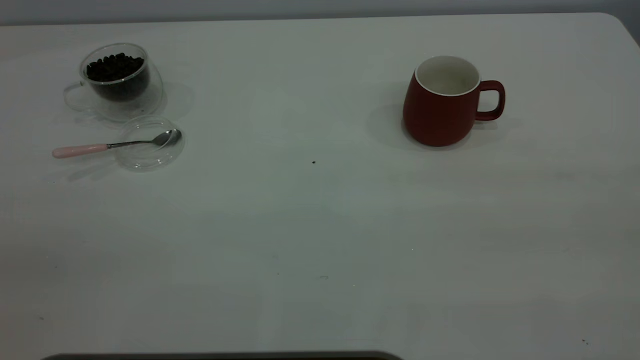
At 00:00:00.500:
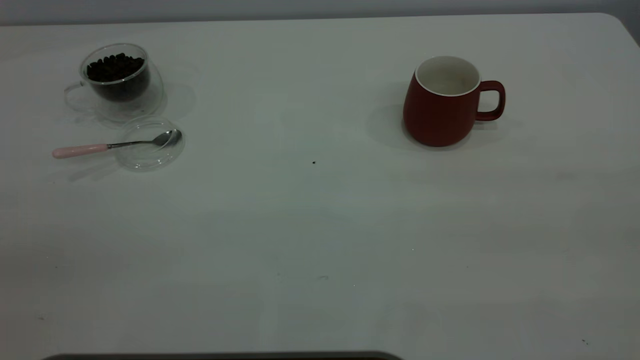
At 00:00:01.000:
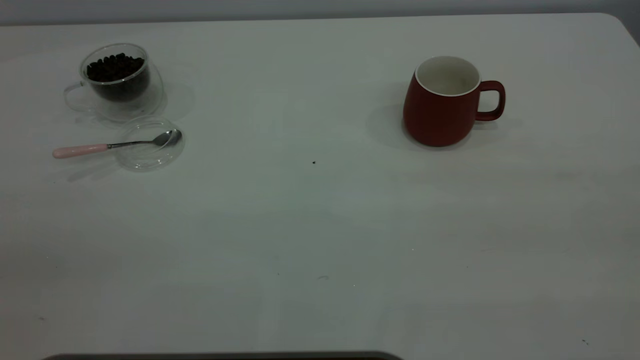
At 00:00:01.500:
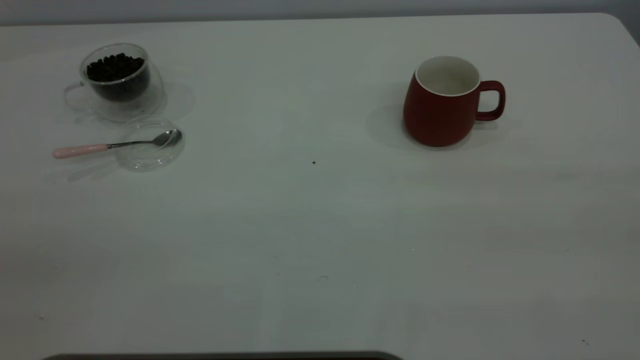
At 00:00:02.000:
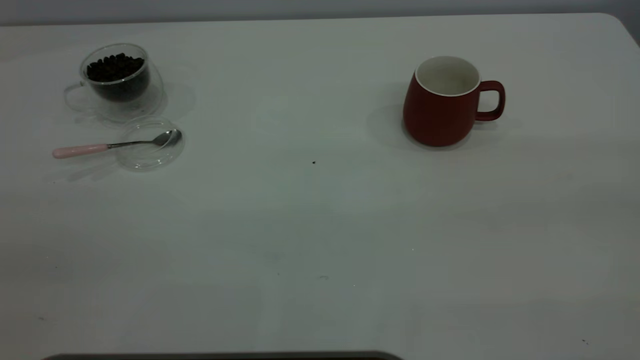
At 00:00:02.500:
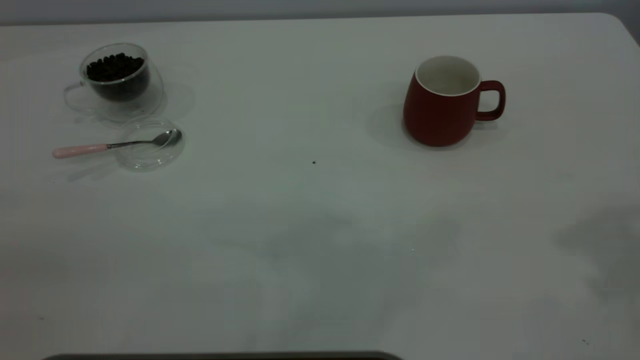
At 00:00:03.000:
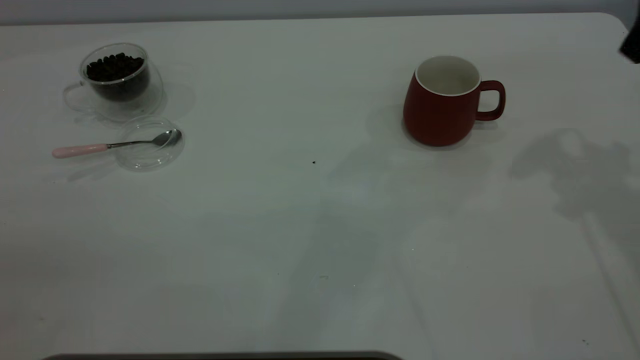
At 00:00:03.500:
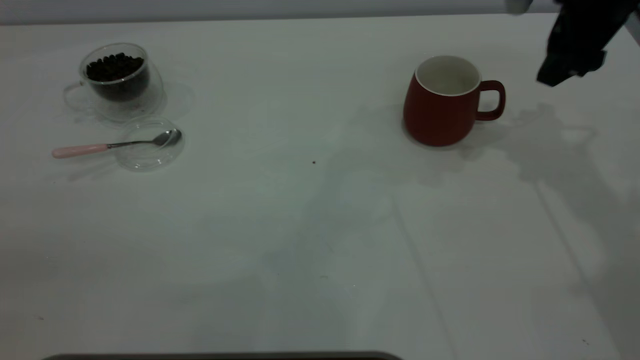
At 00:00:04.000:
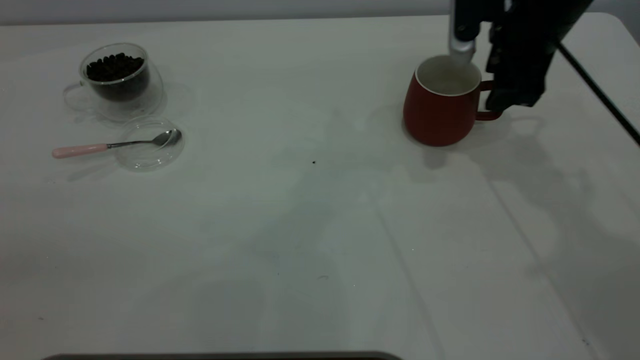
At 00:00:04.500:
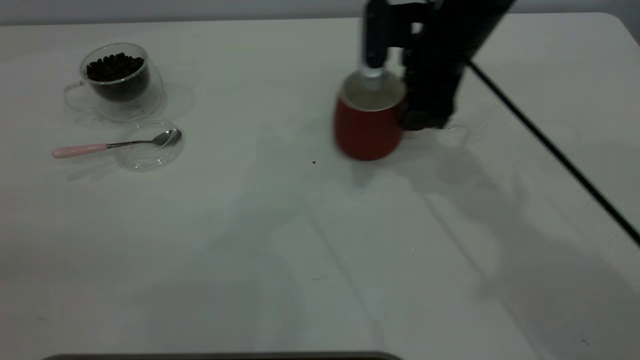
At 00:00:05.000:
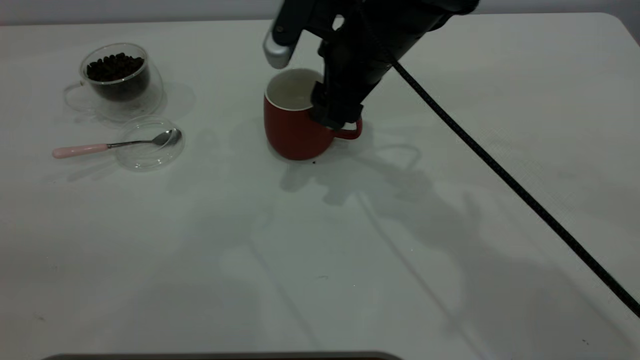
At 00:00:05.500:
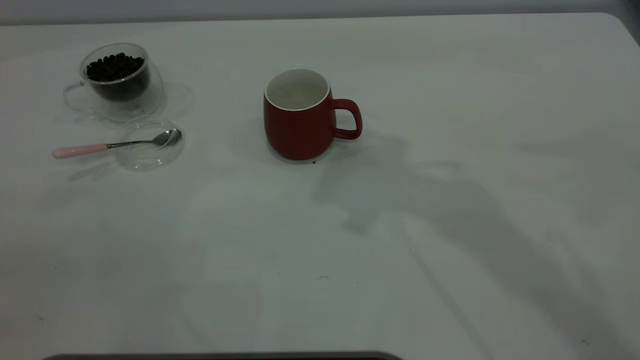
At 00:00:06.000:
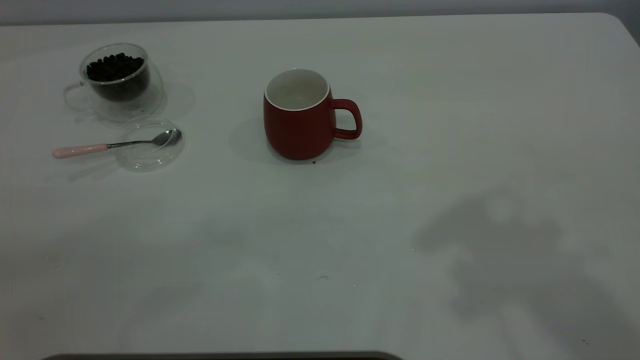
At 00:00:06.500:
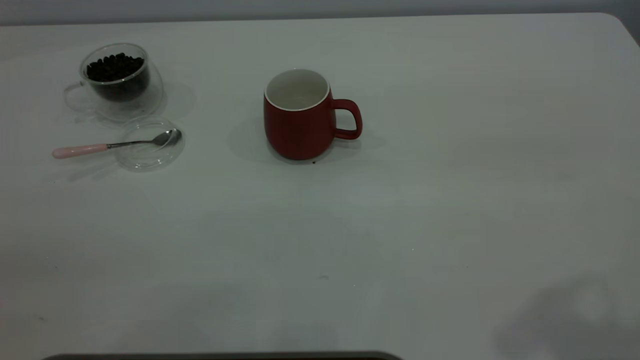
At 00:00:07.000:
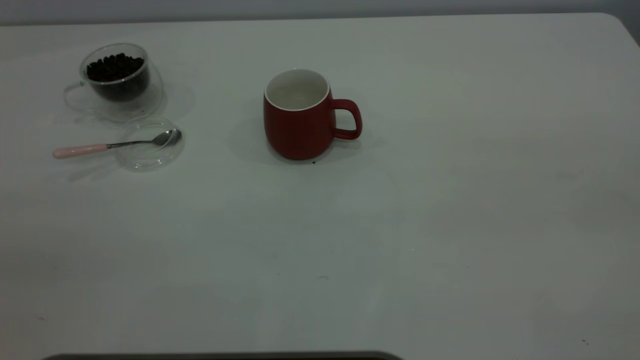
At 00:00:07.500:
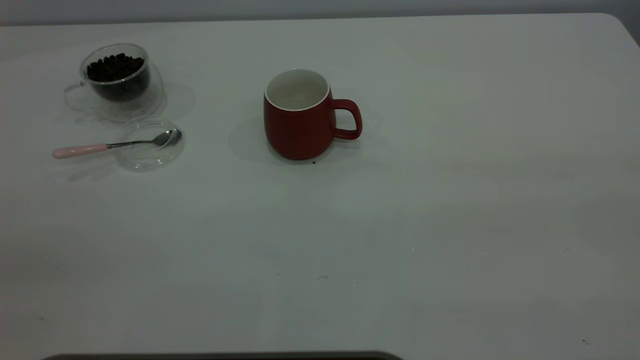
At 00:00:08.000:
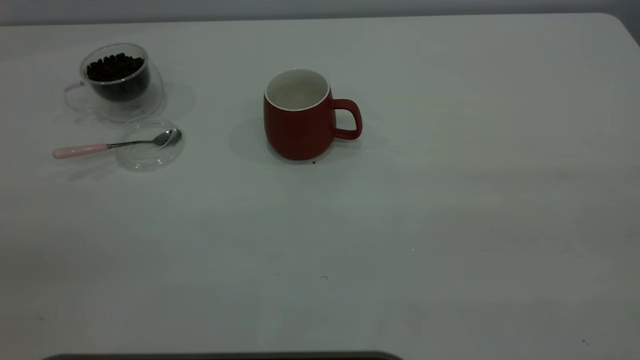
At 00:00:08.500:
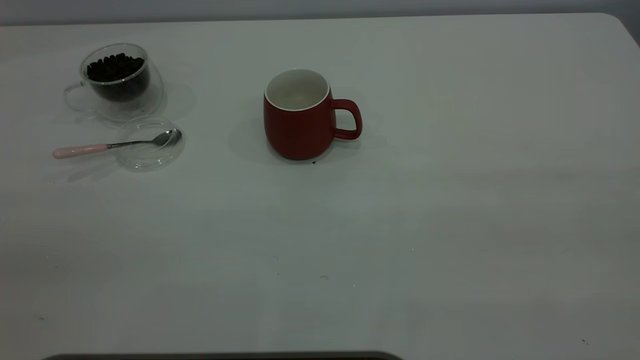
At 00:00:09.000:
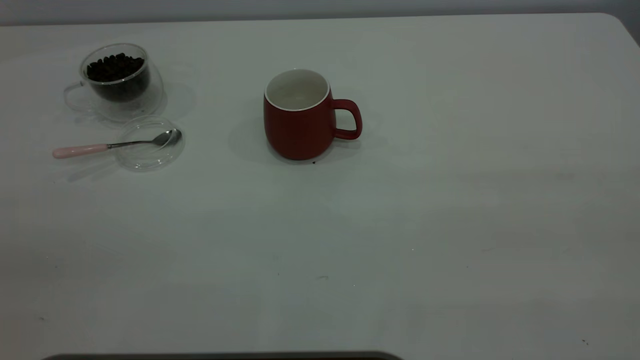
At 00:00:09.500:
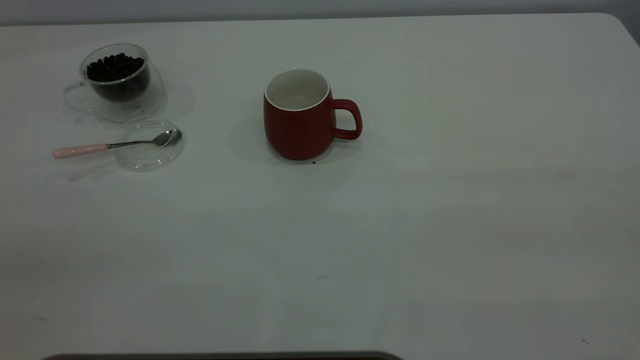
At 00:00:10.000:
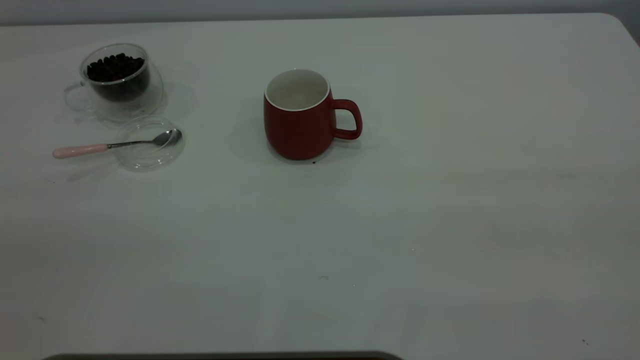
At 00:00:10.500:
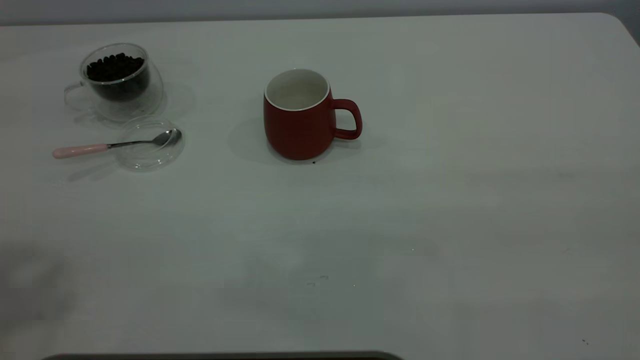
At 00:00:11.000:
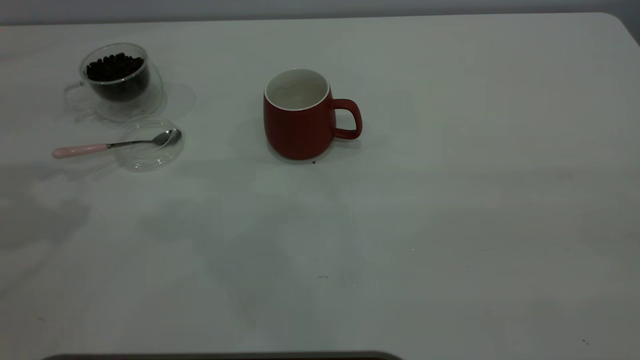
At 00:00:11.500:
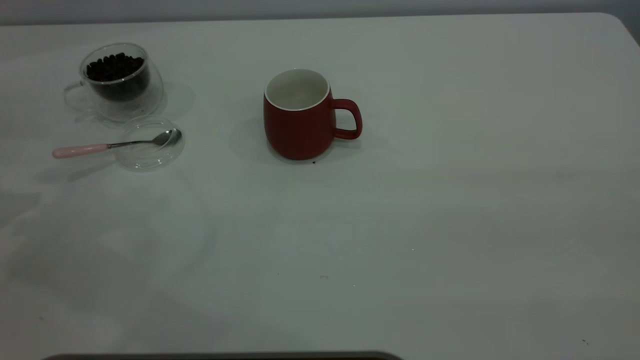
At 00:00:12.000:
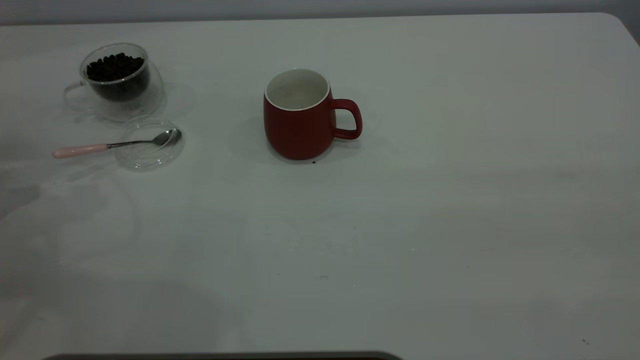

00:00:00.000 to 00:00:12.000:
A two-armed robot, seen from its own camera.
Task of the whole recording: the right gripper place the red cup in the center of the table, the left gripper take the pink spoon from the cup lid and scoop out the coffee beans from the coffee cup and put them into the red cup, the left gripper put the spoon back into the cup lid.
Step, 00:00:00.000 to 00:00:05.000: Move the cup to the center of view.
00:00:02.000 to 00:00:04.000: The right gripper travels forward and downward by approximately 50 cm.
00:00:04.000 to 00:00:06.000: The right gripper shifts some 35 cm upward and backward.

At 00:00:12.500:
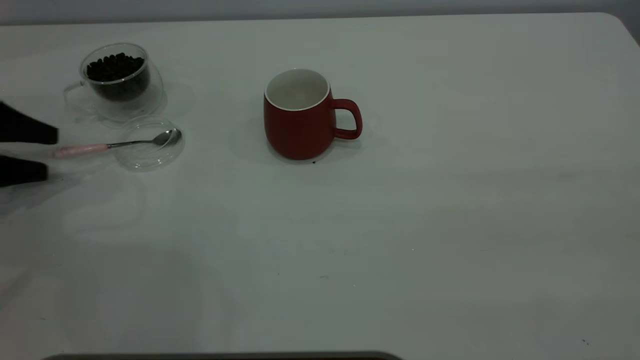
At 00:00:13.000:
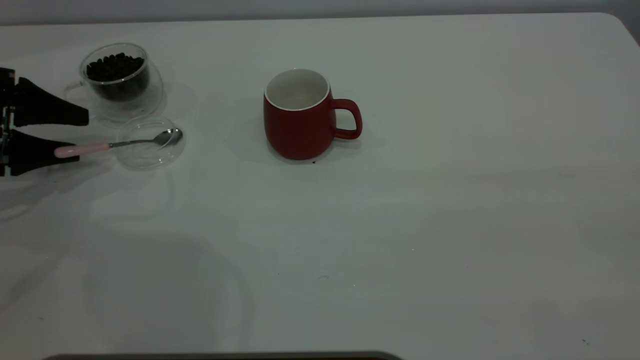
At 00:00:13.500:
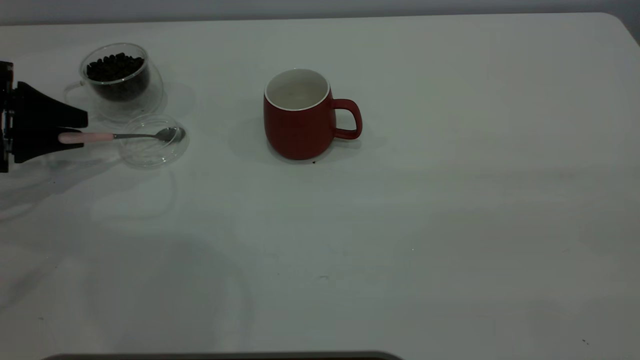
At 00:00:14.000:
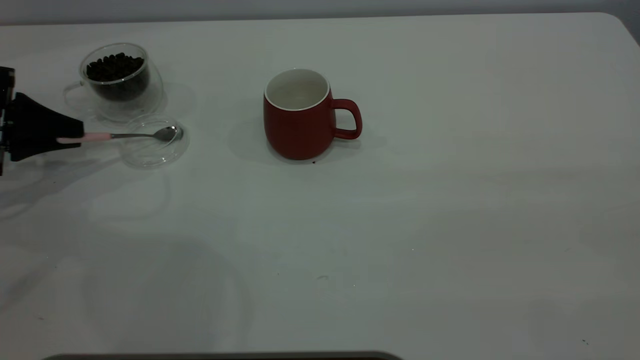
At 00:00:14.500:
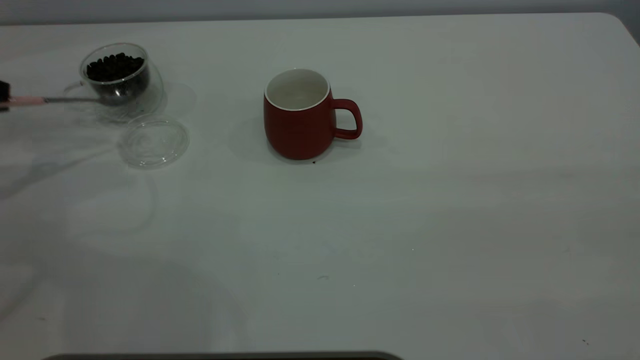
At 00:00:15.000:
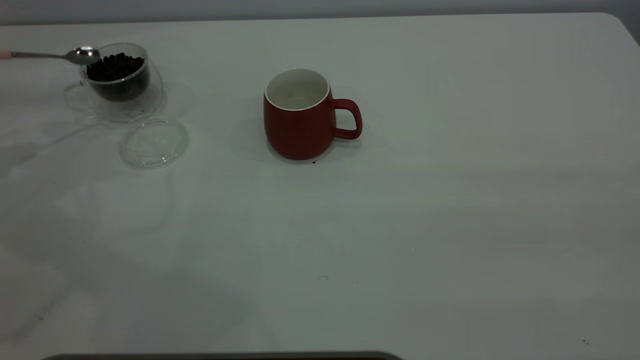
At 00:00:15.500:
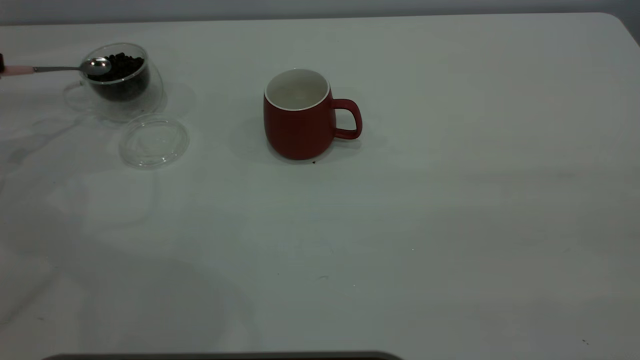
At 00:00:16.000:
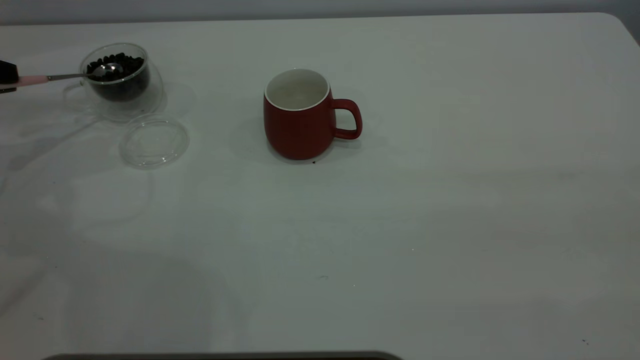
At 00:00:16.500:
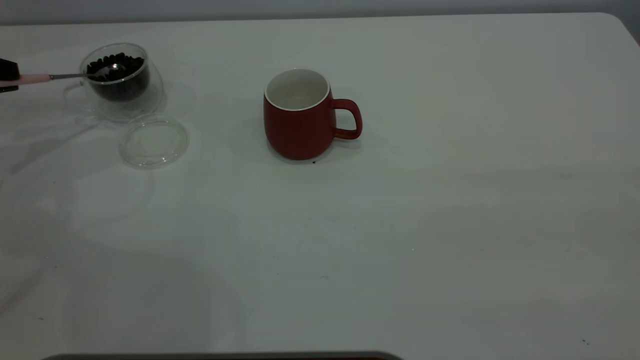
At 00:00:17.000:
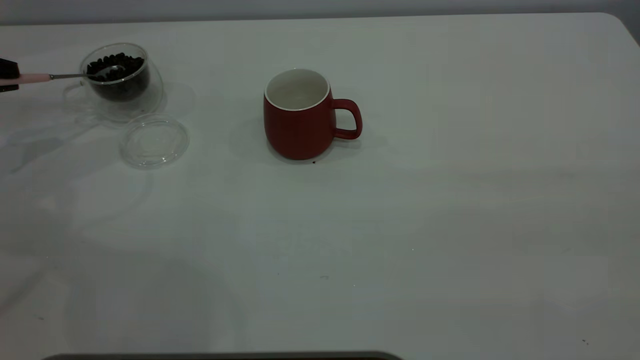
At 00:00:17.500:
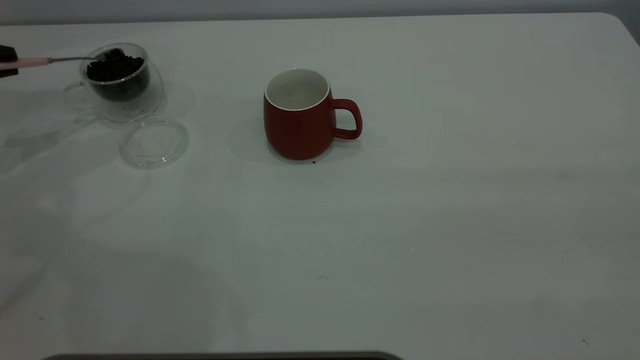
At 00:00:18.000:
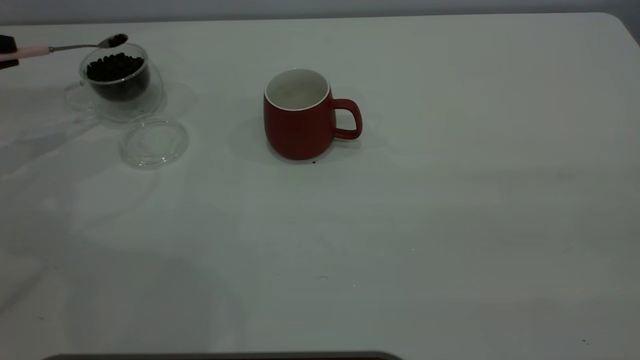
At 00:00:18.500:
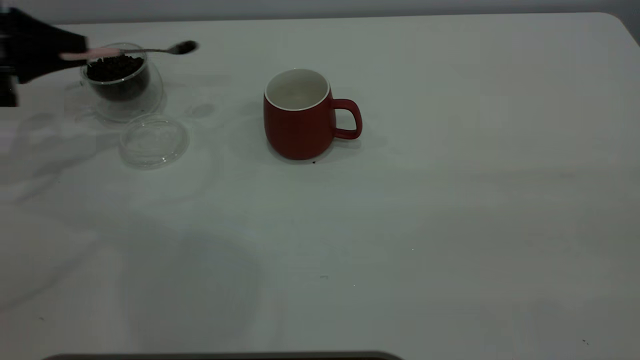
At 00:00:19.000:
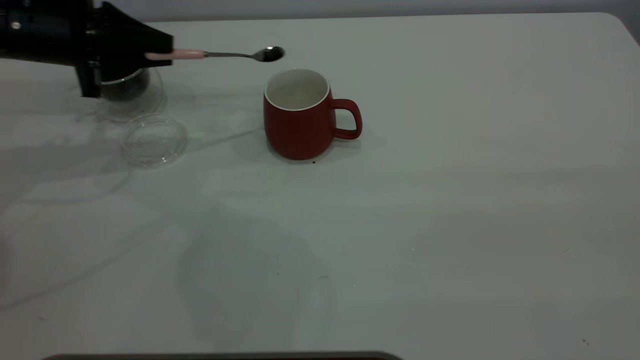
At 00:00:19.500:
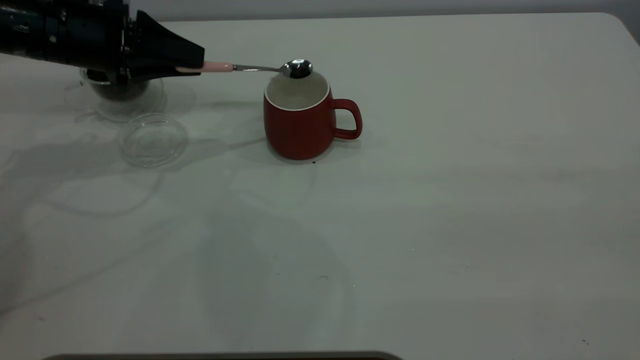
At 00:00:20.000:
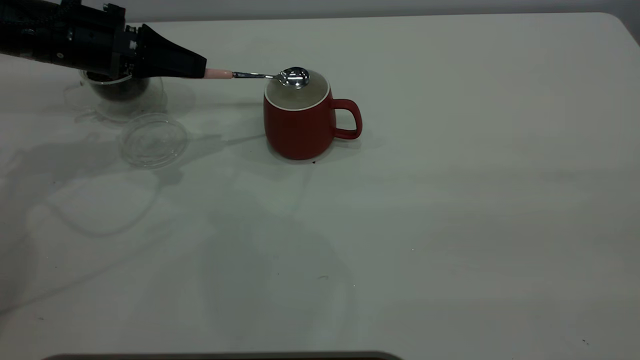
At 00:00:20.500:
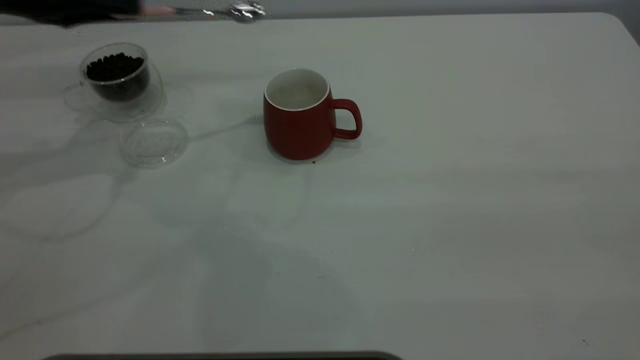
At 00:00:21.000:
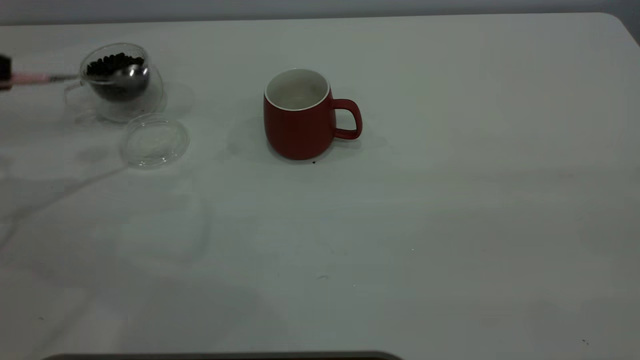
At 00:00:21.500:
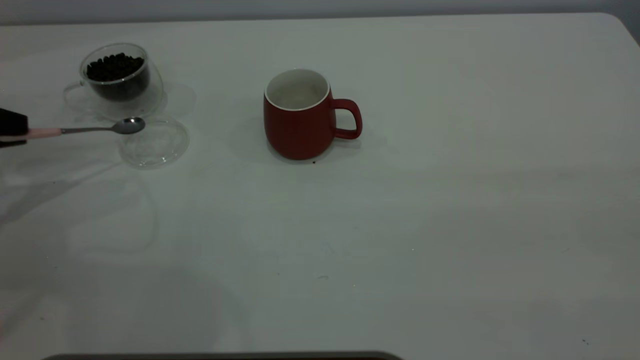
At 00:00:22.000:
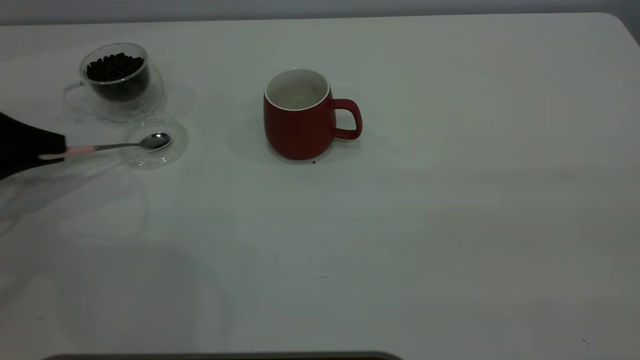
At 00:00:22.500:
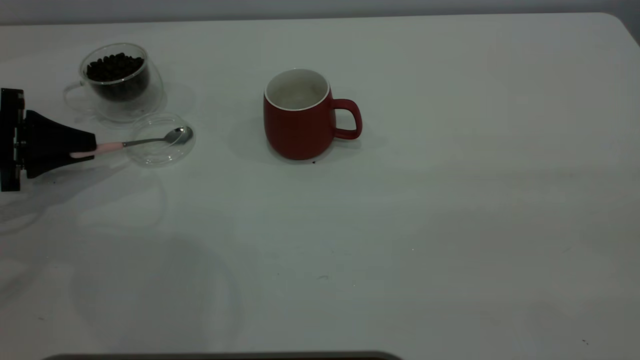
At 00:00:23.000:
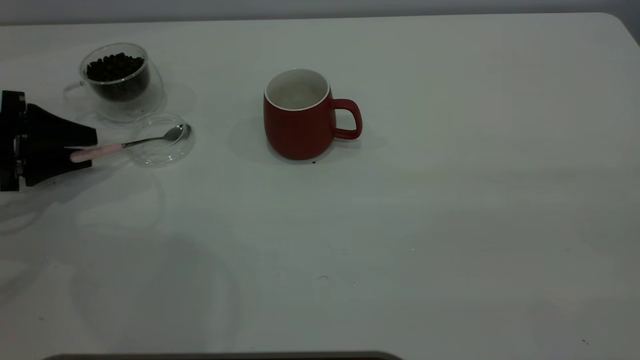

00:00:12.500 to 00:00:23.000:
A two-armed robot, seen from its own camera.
Task of the whole recording: the right gripper place the red cup in the center of the table, the left gripper take the pink spoon from the cup lid and scoop out the coffee beans from the coffee cup and put them into the red cup, the left gripper put the spoon back into the cup lid.
Step, 00:00:12.500 to 00:00:14.500: Pick up the spoon.
Step, 00:00:15.000 to 00:00:20.000: Scoop a spoonful of beans into the cup.
00:00:12.500 to 00:00:14.500: The left gripper is displaced upward by about 5 cm, and closes up.
00:00:16.500 to 00:00:19.000: The left gripper is displaced to the right by about 15 cm.
00:00:19.000 to 00:00:21.000: The left gripper shifts about 15 cm to the left and backward.
00:00:21.000 to 00:00:23.000: The left gripper is displaced downward by approximately 10 cm, and opens its fingers.
